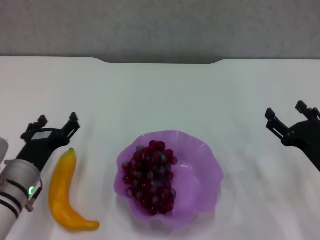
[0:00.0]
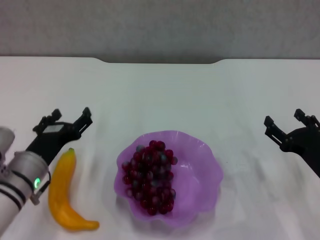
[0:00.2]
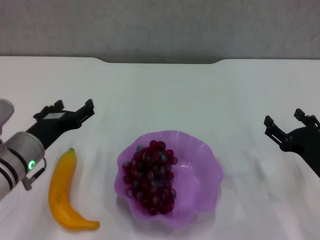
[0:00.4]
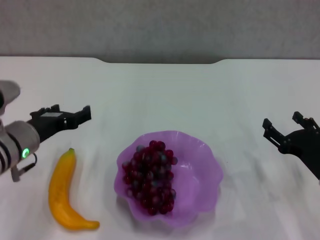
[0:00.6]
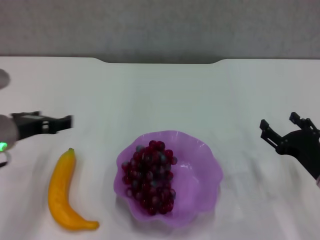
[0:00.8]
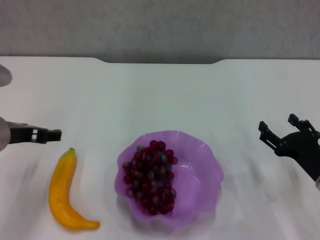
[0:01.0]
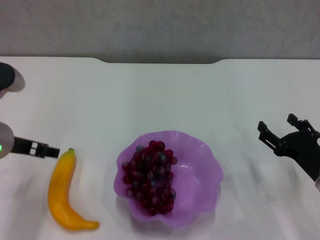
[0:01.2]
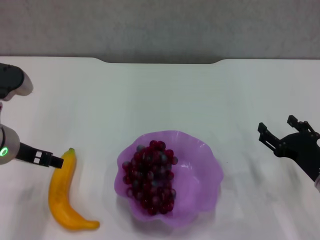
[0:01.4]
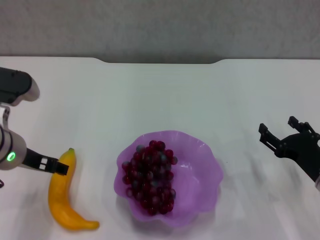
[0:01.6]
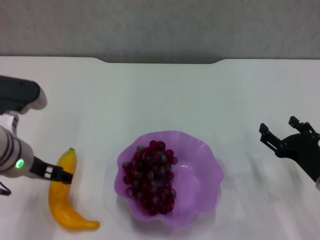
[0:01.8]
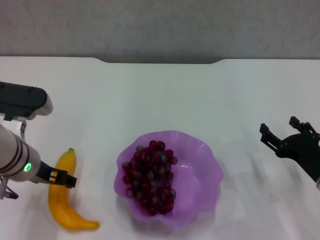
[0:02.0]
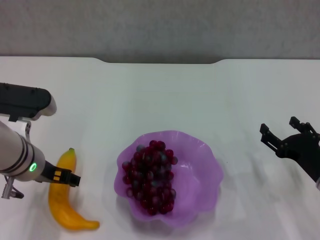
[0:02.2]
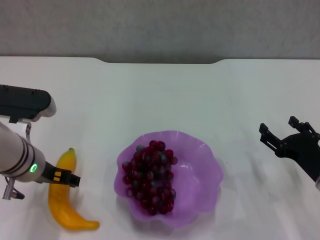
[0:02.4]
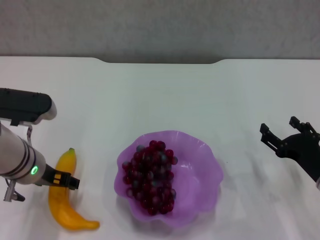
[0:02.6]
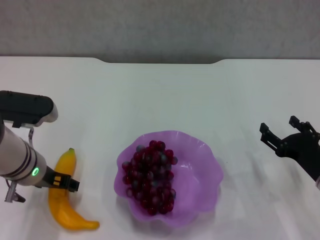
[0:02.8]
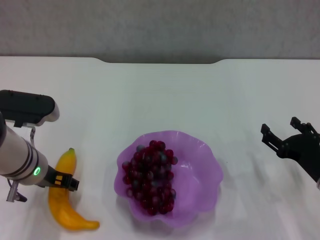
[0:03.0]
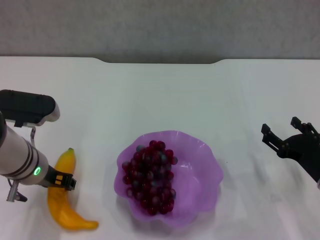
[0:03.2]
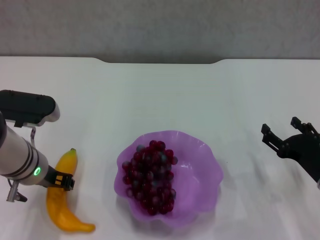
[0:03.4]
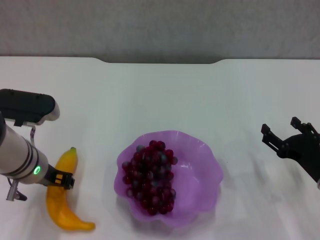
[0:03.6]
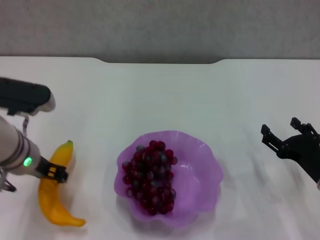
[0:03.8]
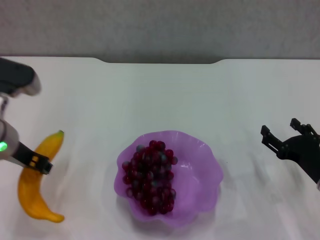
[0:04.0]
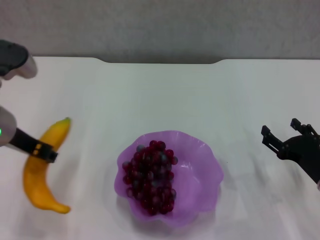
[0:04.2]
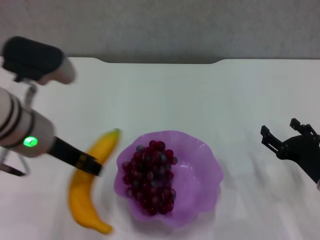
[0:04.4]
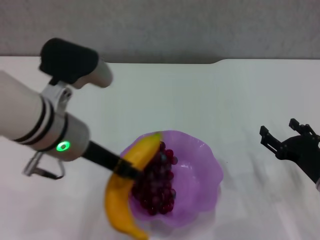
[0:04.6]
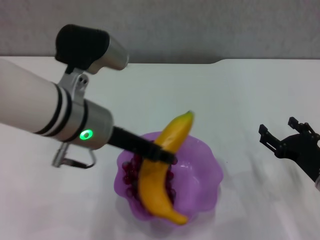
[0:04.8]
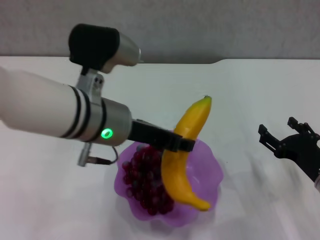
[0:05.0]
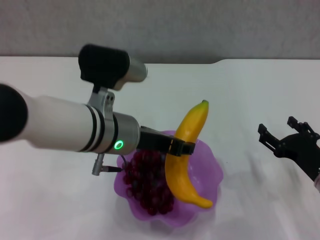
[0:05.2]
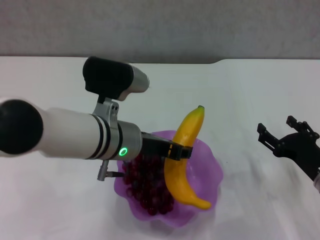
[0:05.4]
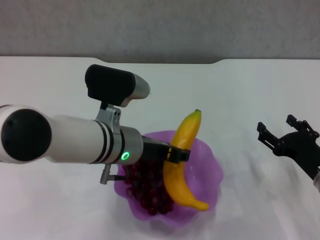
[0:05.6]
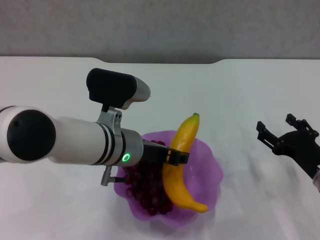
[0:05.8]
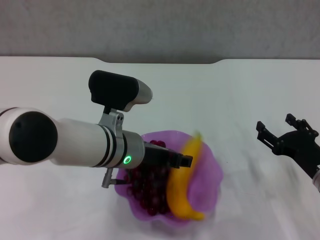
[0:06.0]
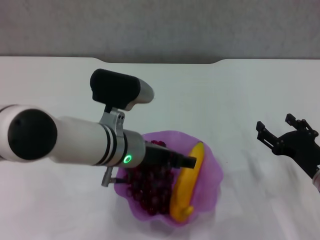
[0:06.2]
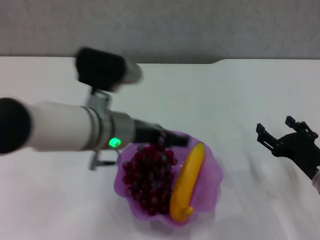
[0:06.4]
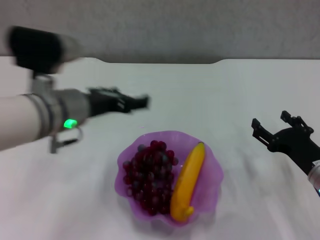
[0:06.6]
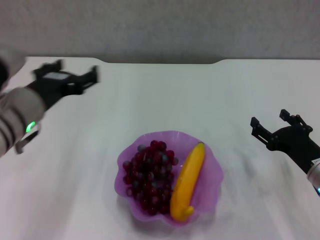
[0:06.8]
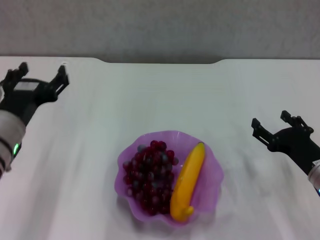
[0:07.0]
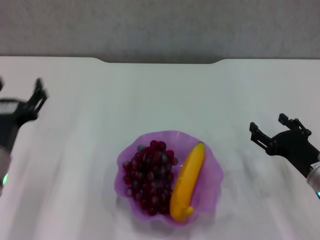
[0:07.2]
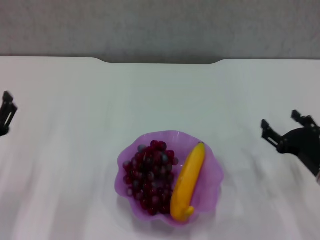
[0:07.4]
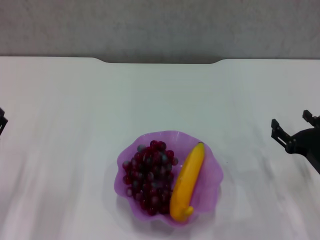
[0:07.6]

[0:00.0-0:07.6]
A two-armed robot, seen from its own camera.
Step, 0:00.0 to 0:03.4: Grasp the banana with left gripper.
Step, 0:03.8 to 0:06.4: Place the banana in the purple plate with left gripper.
0:00.0 to 0:01.6: The left gripper is displaced upward by some 10 cm.
0:01.6 to 0:03.0: The left gripper heads downward, covering some 5 cm.
0:03.0 to 0:04.6: The left gripper goes approximately 10 cm upward and to the right, and closes.
0:04.6 to 0:06.0: The left gripper is displaced downward and to the right by roughly 10 cm.
0:06.0 to 0:07.6: The left gripper heads to the left, covering some 20 cm, and opens its fingers.
